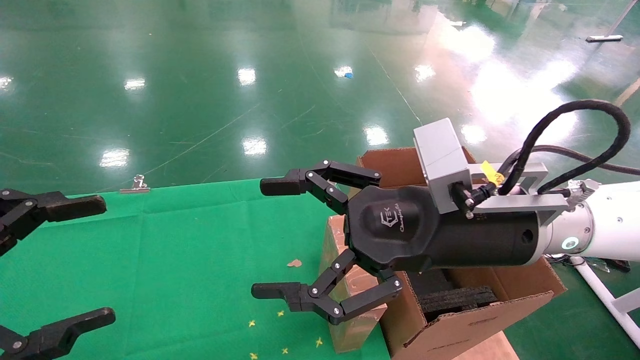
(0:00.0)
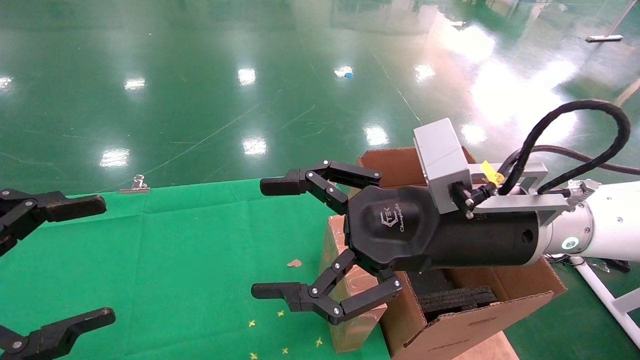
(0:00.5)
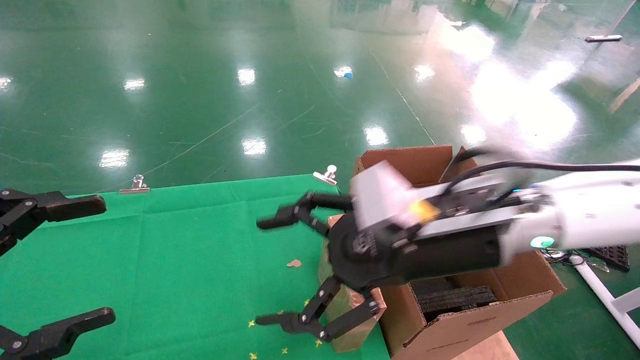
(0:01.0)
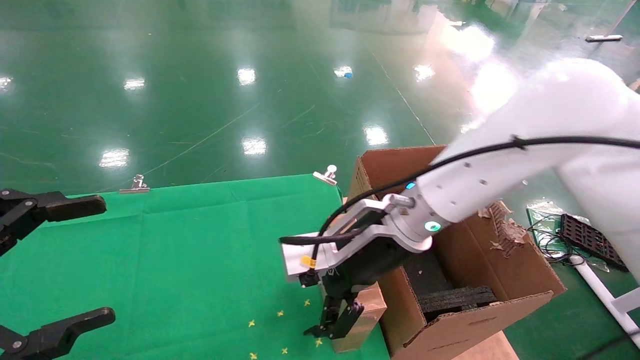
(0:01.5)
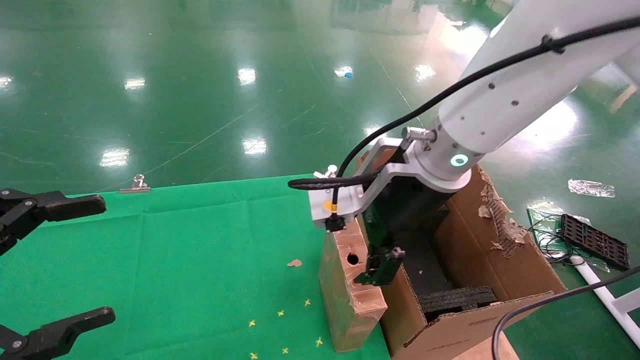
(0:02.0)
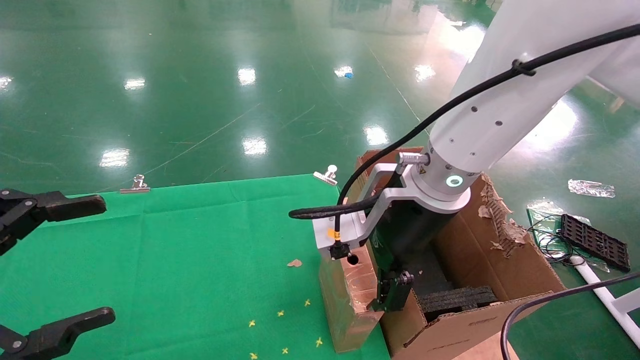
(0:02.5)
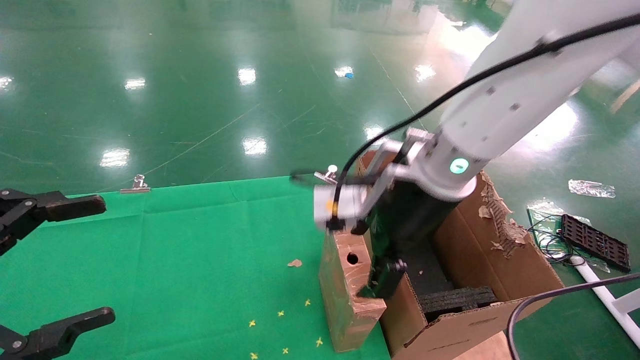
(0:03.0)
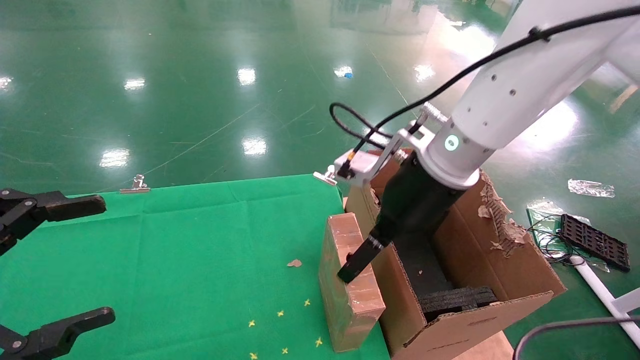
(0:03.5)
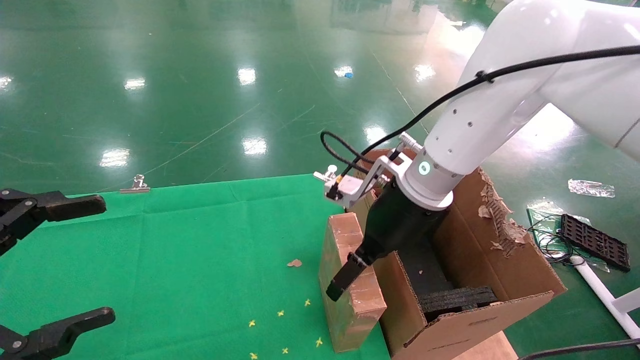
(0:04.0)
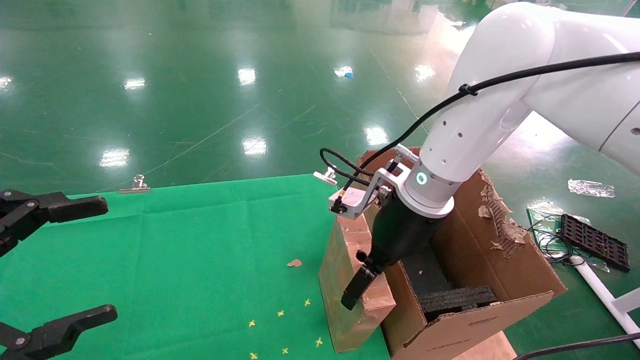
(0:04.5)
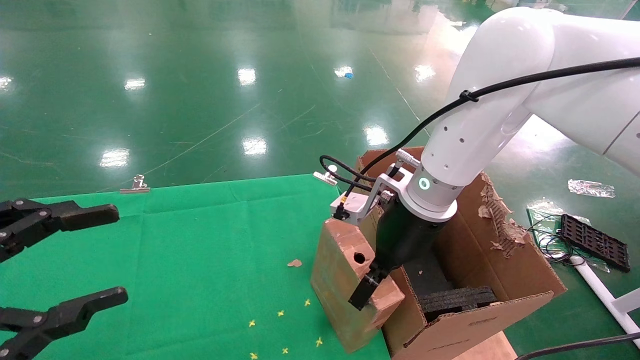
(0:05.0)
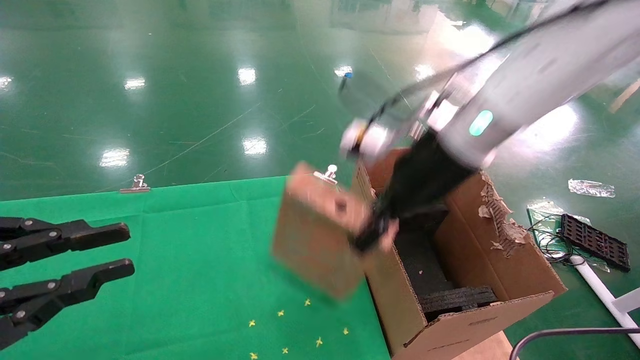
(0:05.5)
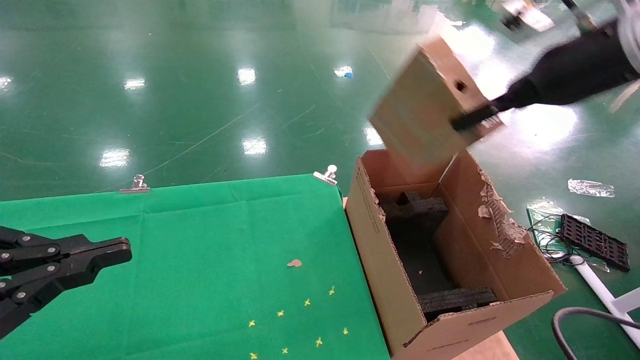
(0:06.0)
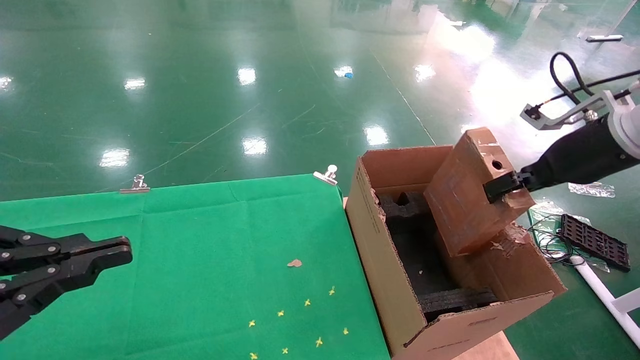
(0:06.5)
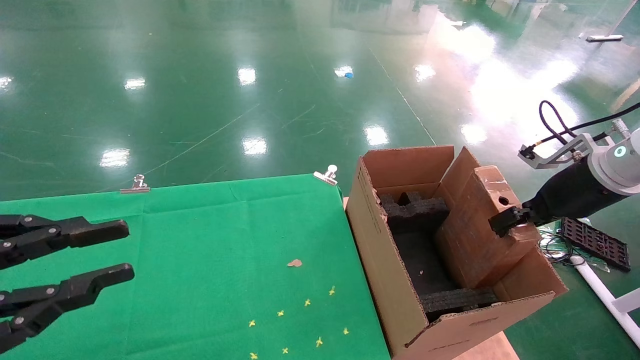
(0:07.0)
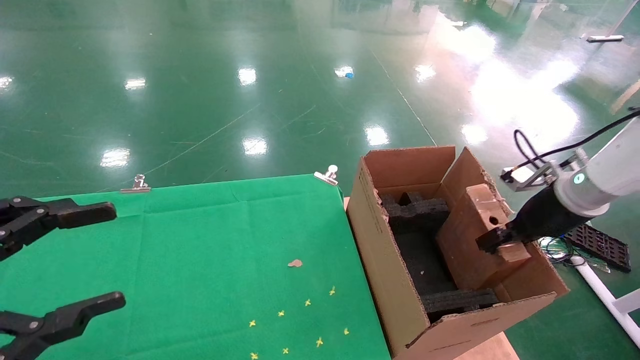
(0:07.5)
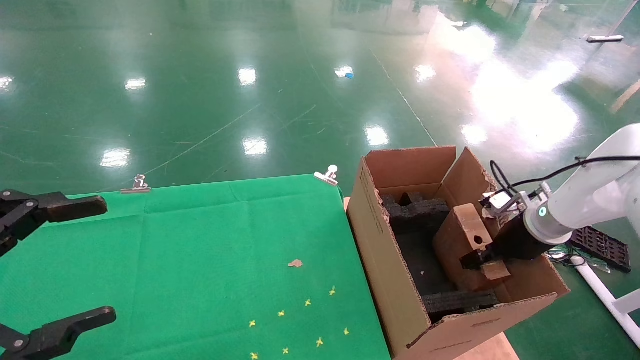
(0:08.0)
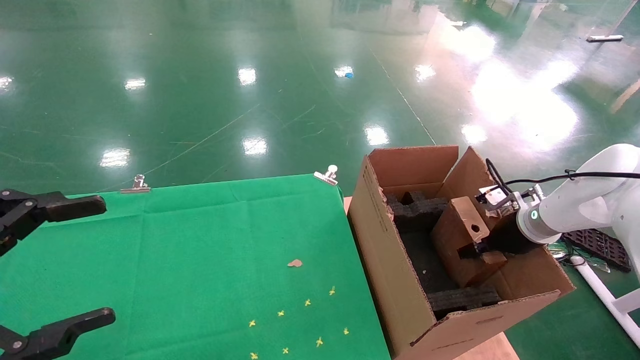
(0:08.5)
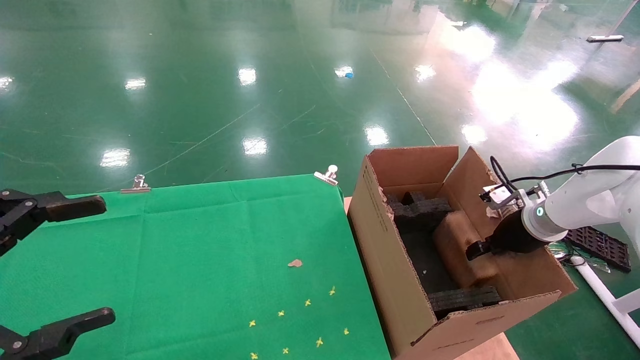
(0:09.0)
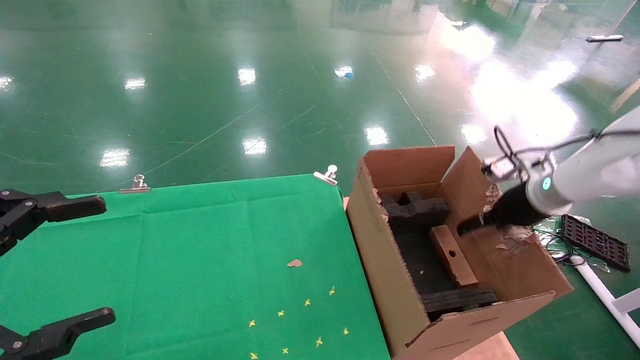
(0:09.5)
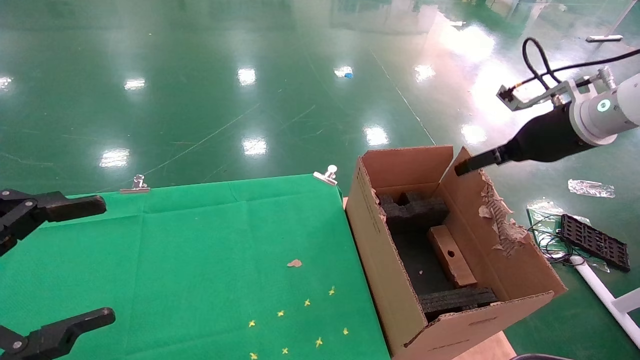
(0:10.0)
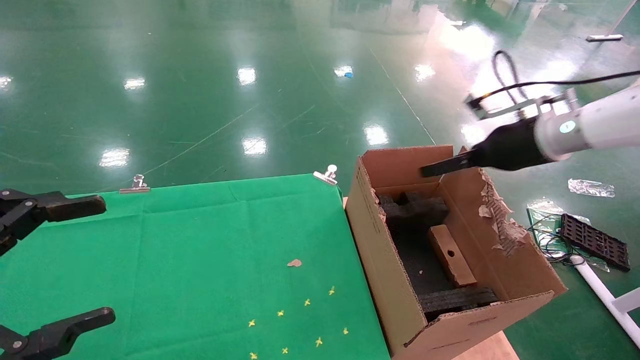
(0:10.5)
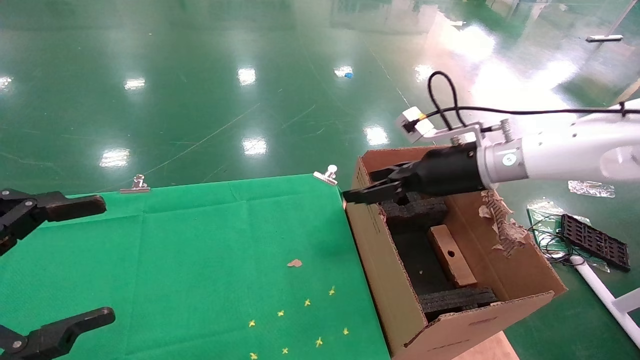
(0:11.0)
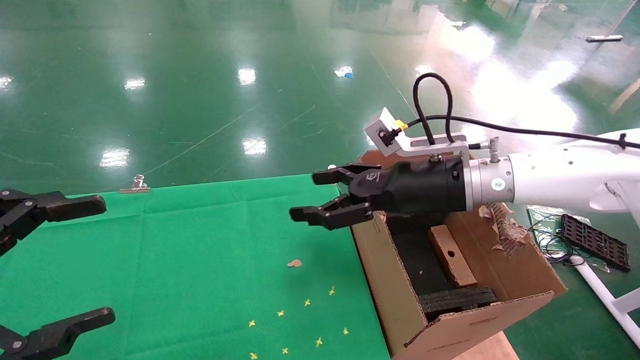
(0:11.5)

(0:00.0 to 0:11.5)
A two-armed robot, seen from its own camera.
Task of the whole recording: using a robotic arm to pick up a cardboard box and palace it the carton.
Step, 0:01.0 - 0:05.0: Pick up the mouse and the power cord paper box.
Step, 0:05.5 - 0:10.0: Place the mouse and the power cord paper box into the container.
0:00.0 - 0:02.0: The right gripper is displaced forward and to the left by approximately 10 cm.
0:02.0 - 0:04.0: The right gripper moves about 5 cm.
0:04.0 - 0:06.0: The left gripper closes its fingers, while the right gripper shifts about 25 cm to the right and upward, and closes its fingers.
0:06.0 - 0:07.5: The left gripper opens up. Meanwhile the right gripper travels downward and to the right by some 20 cm.
0:07.5 - 0:09.5: The left gripper opens up, while the right gripper opens.
0:09.5 - 0:11.5: The right gripper shifts approximately 20 cm to the left.

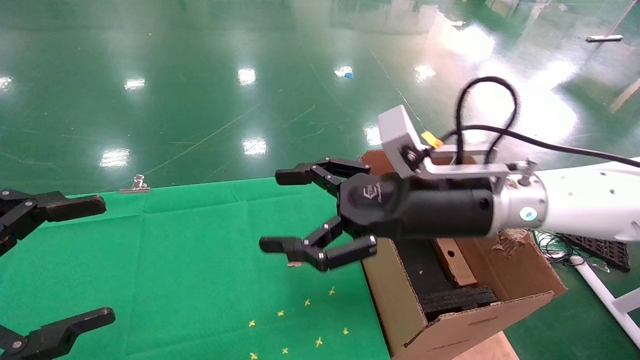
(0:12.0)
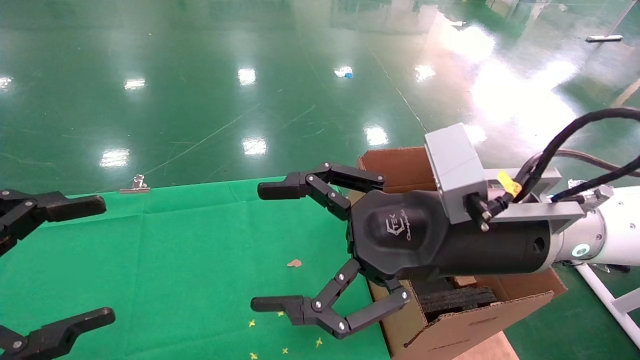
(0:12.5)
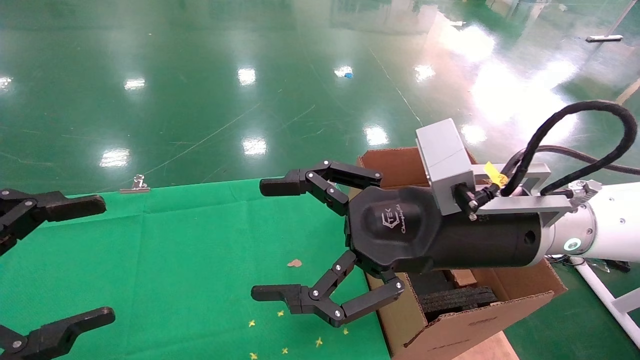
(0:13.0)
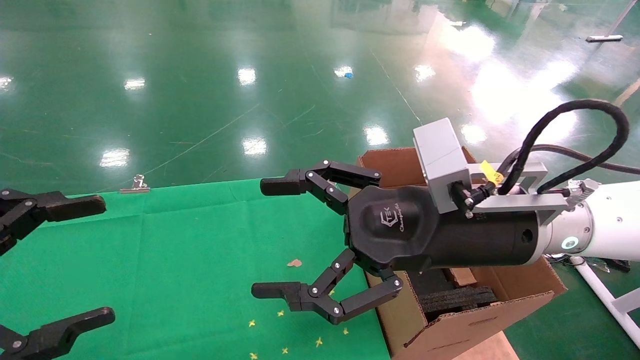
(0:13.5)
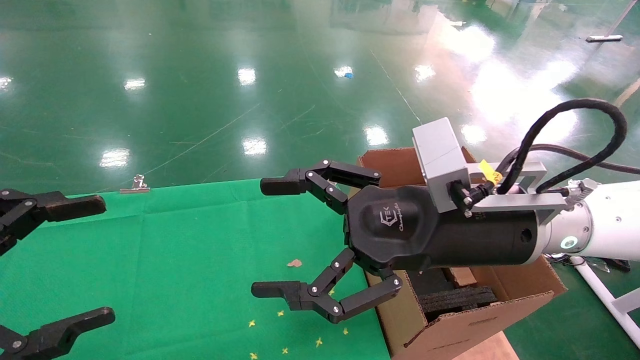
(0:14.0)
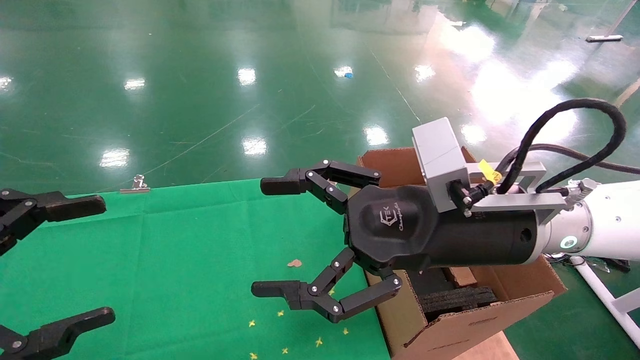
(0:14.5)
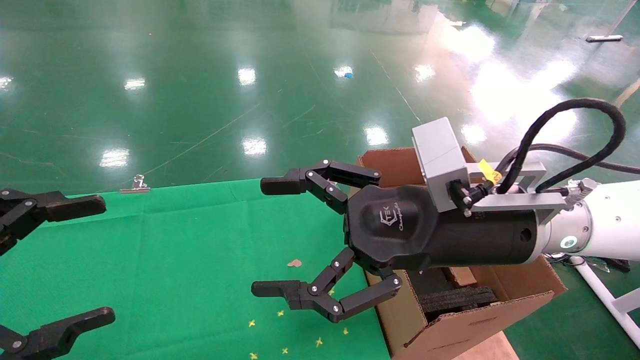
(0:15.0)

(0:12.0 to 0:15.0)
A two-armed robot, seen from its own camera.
Task of the whole recording: using a robotic arm to pick up a cardboard box and palace it the carton.
0:12.0 - 0:13.5: There are only small adjustments of the grippers.
0:13.5 - 0:15.0: The two grippers keep their place.
